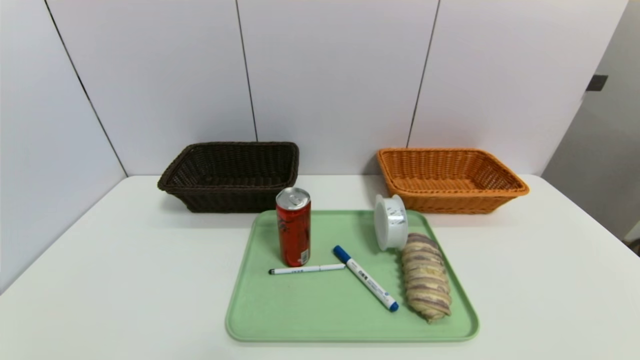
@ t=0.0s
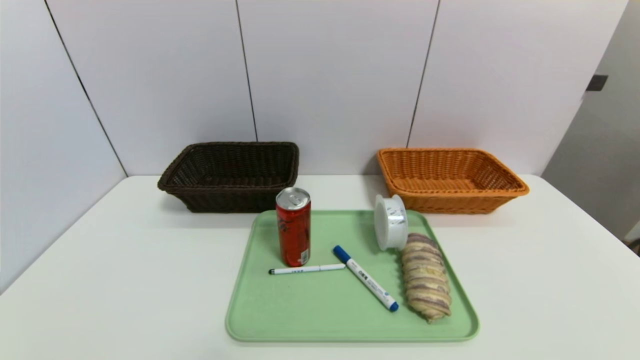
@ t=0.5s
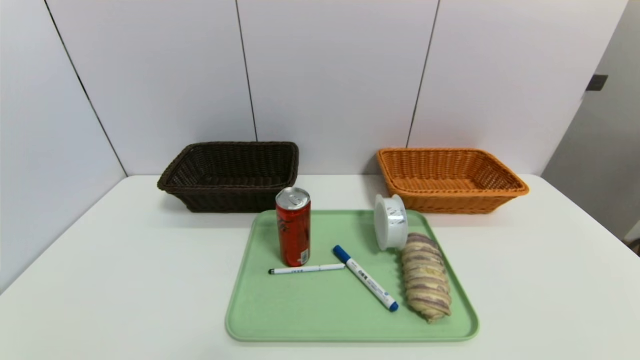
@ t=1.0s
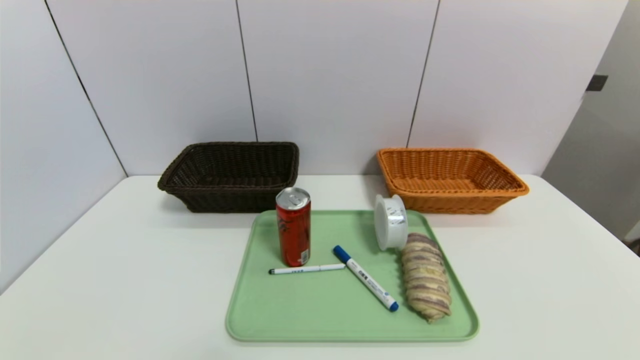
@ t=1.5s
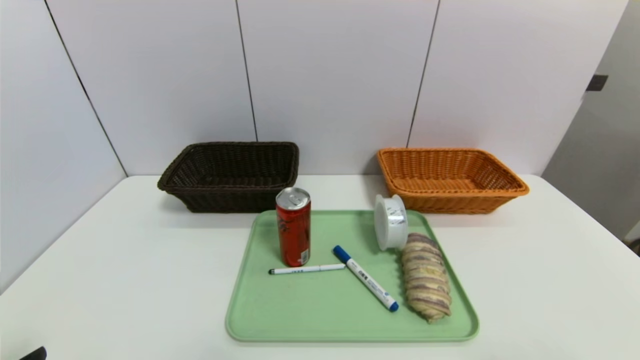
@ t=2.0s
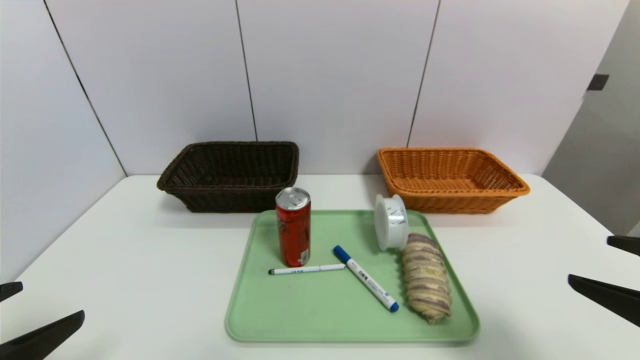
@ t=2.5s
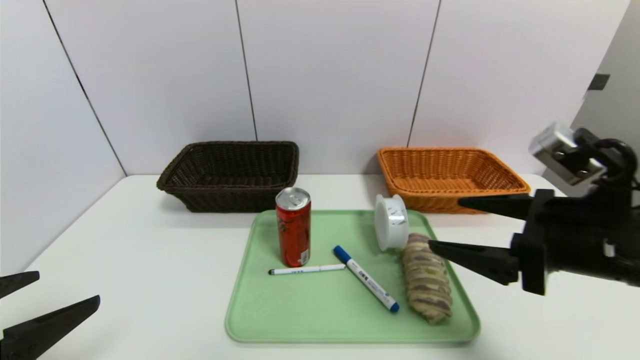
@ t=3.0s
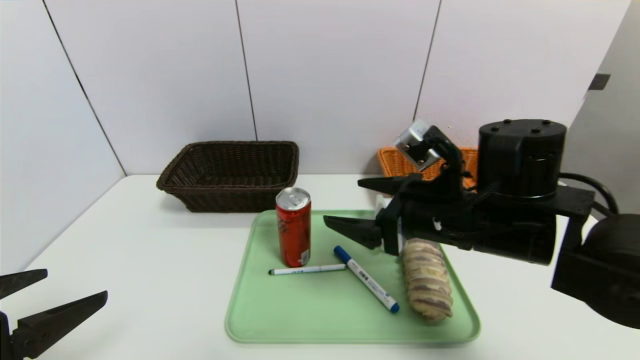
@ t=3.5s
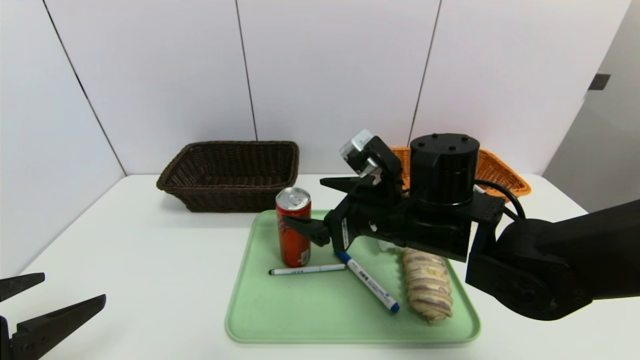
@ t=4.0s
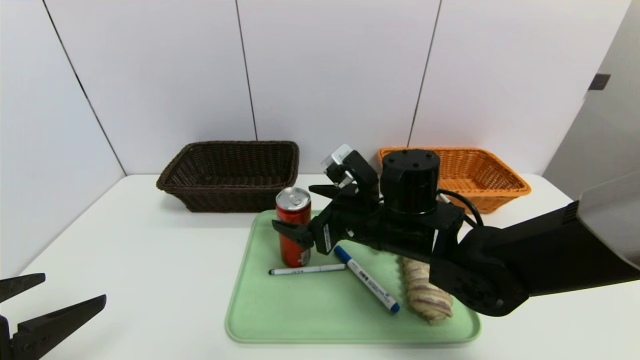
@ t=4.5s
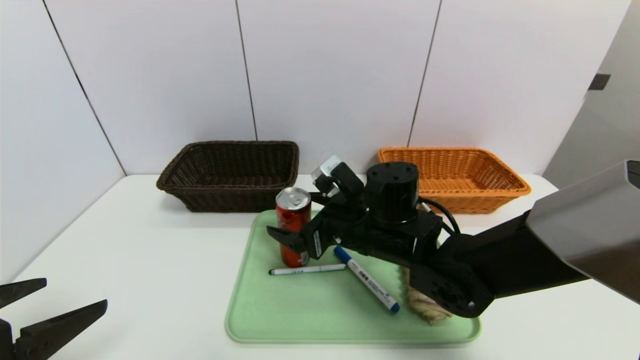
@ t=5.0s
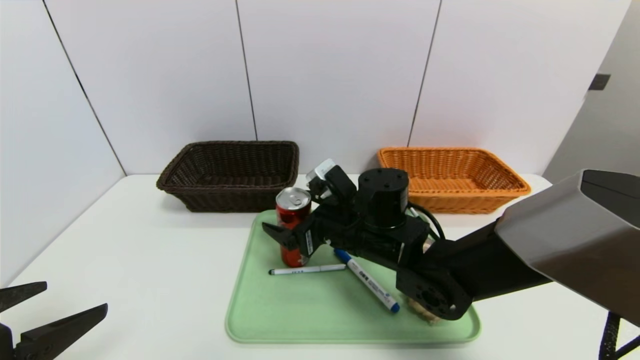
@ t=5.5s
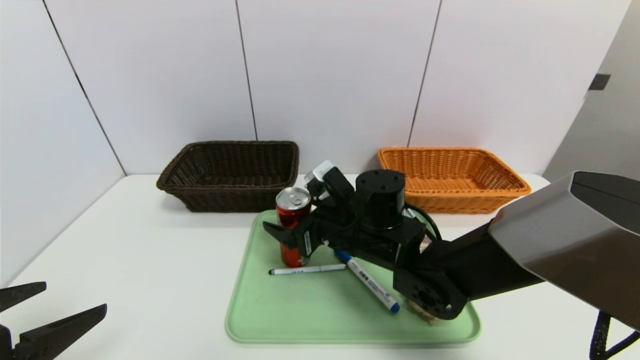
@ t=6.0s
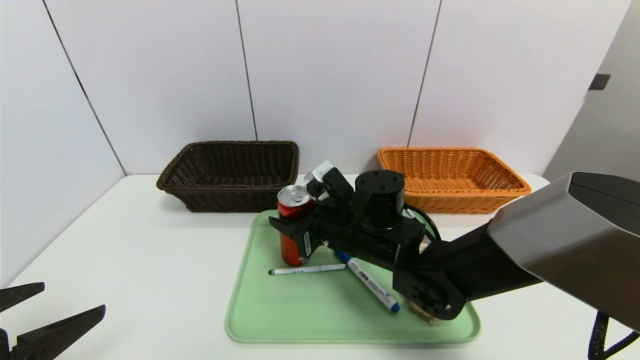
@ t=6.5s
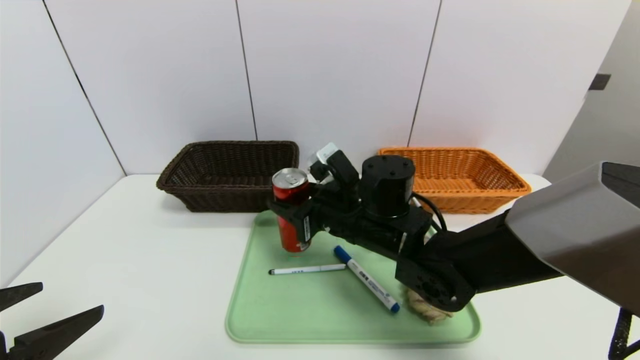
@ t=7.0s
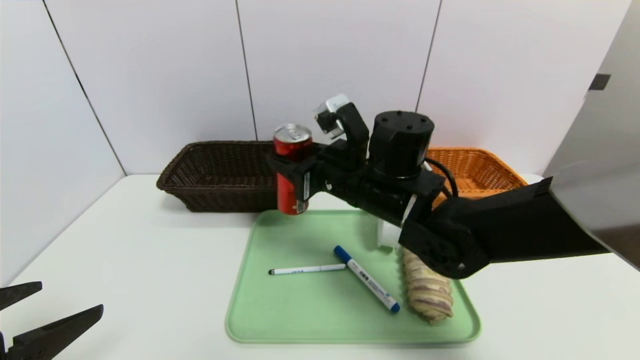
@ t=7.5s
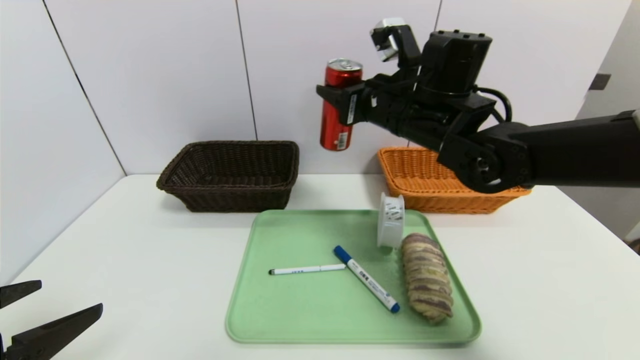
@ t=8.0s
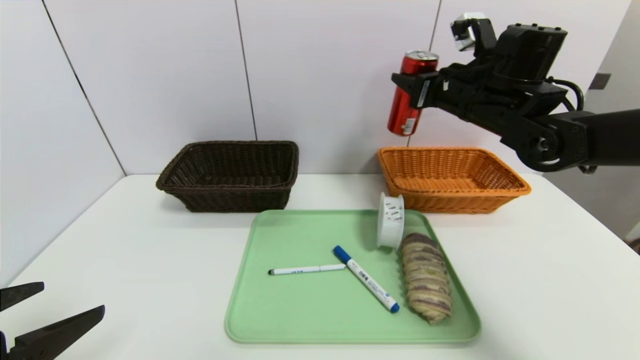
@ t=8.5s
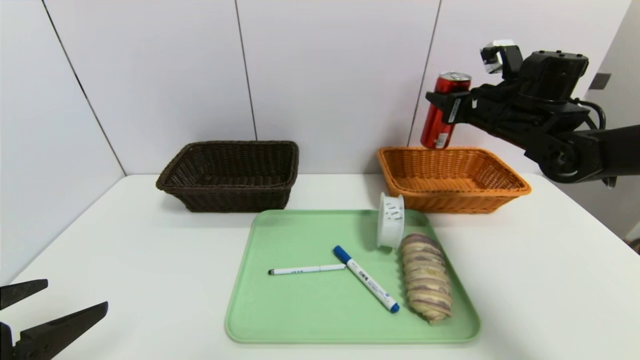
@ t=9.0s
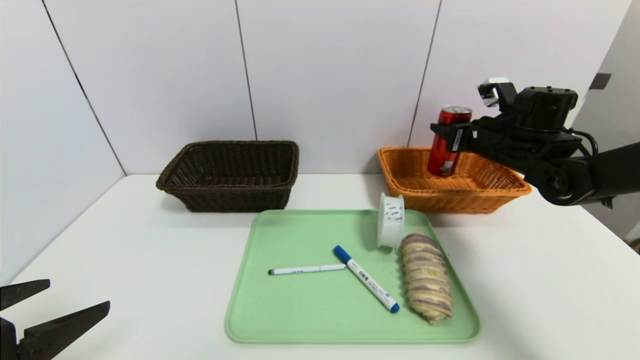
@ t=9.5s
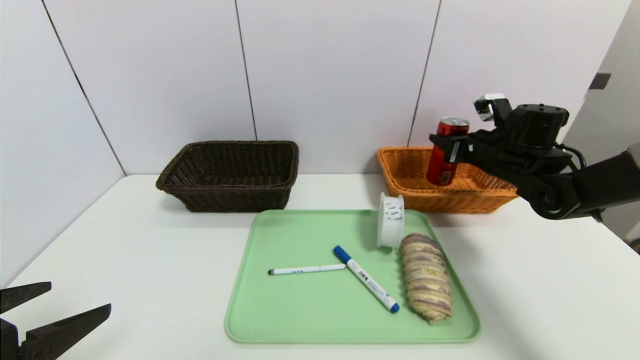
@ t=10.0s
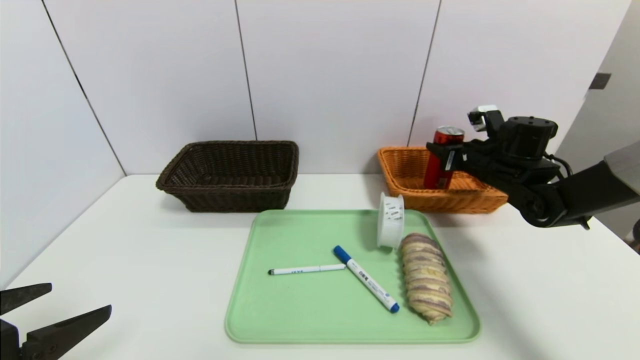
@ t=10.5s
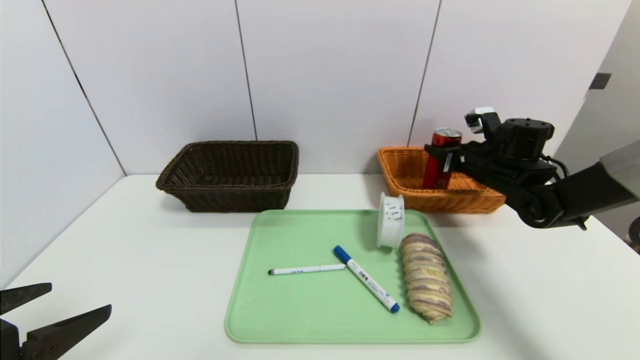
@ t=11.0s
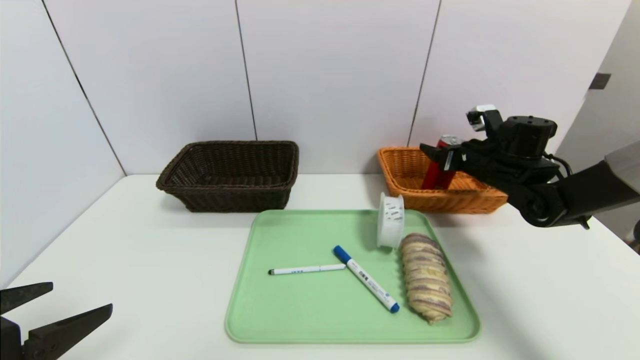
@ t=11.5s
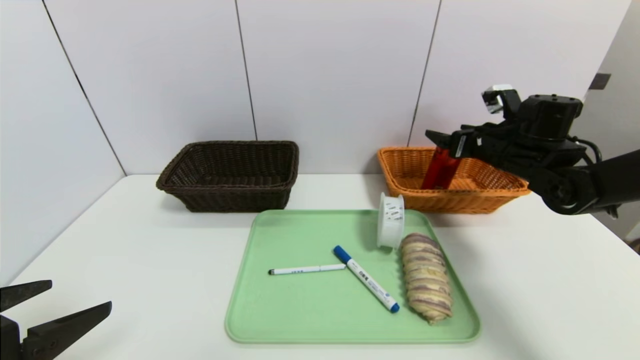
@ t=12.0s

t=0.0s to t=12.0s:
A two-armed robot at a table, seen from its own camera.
Task of the whole recording: place the food in the right basket with the right gripper, and place the non food items in the left basket with the left gripper.
Step, t=0.0s to t=12.0s: Grasp the canned cola and put it in the right basket.
t=2.0s to t=4.0s: The right gripper moves forward and to the left, some 35 cm. Meanwhile the left gripper shifts approximately 5 cm forward.
t=4.0s to t=6.0s: The right gripper shifts about 5 cm downward.
t=6.0s to t=8.0s: The right gripper travels upward and to the right by some 15 cm, and closes.
t=8.0s to t=10.0s: The right gripper goes about 20 cm to the right and downward.
t=10.0s to t=12.0s: The right gripper opens its fingers.

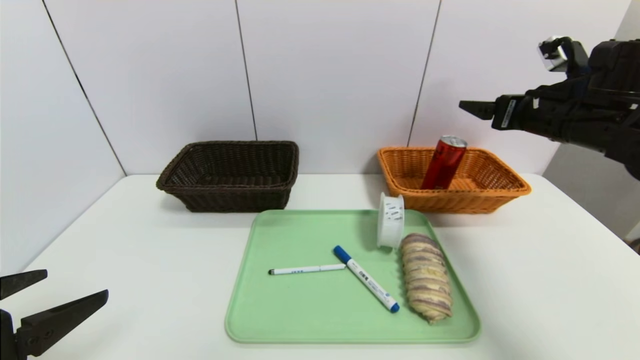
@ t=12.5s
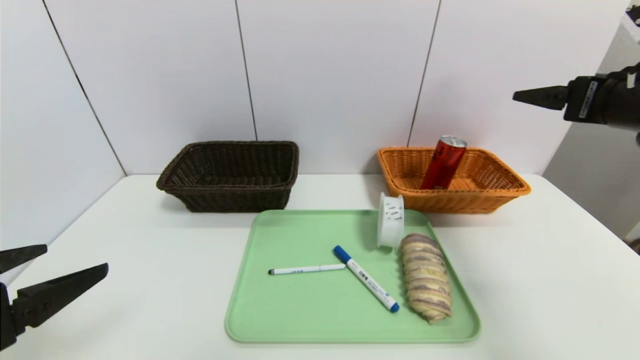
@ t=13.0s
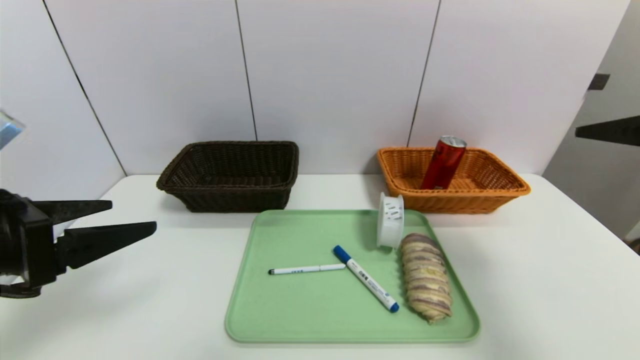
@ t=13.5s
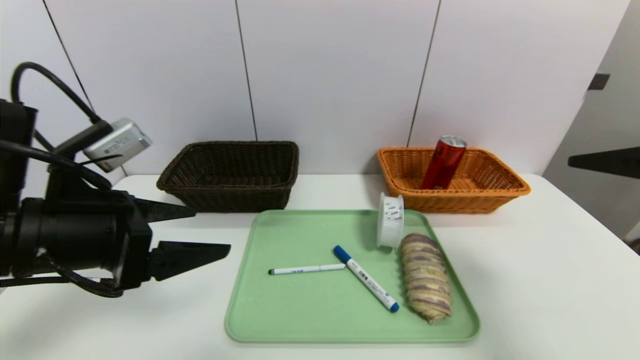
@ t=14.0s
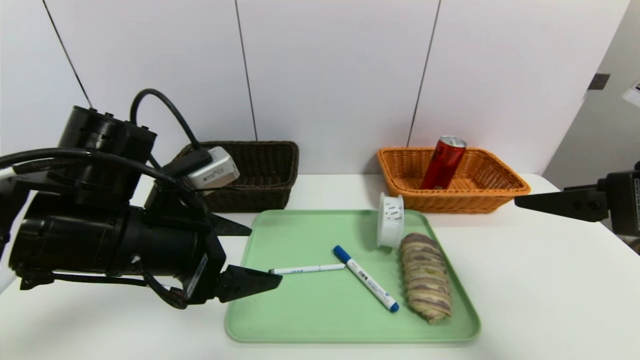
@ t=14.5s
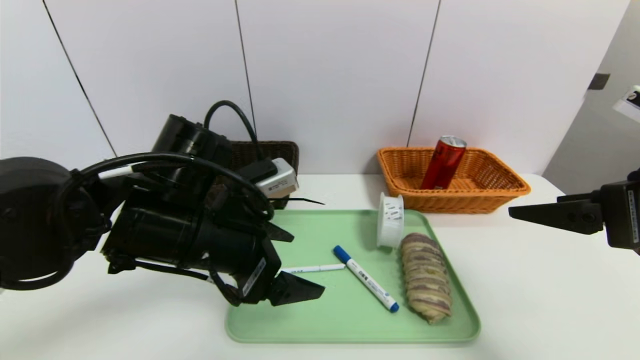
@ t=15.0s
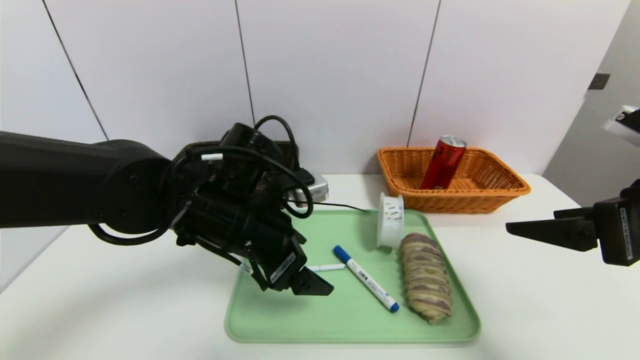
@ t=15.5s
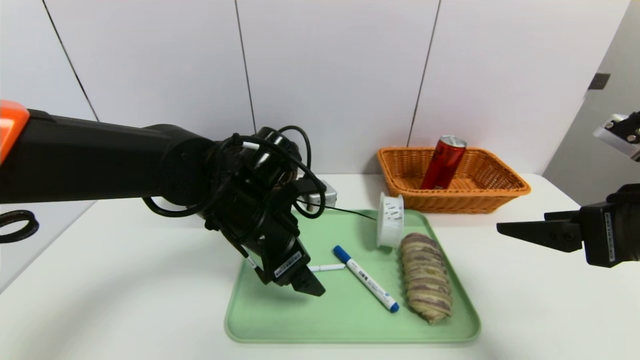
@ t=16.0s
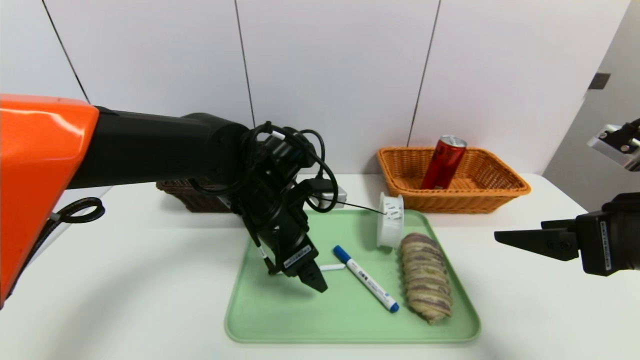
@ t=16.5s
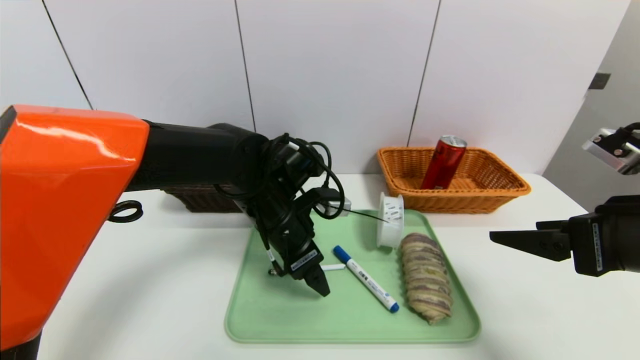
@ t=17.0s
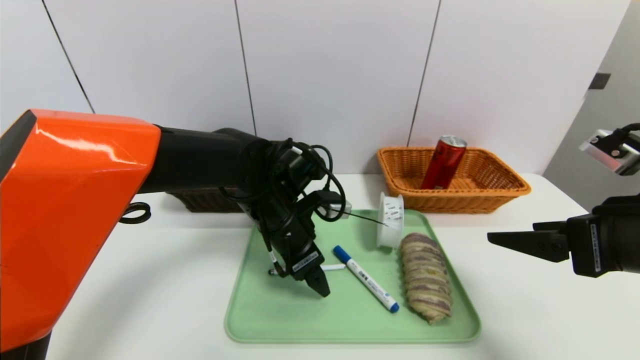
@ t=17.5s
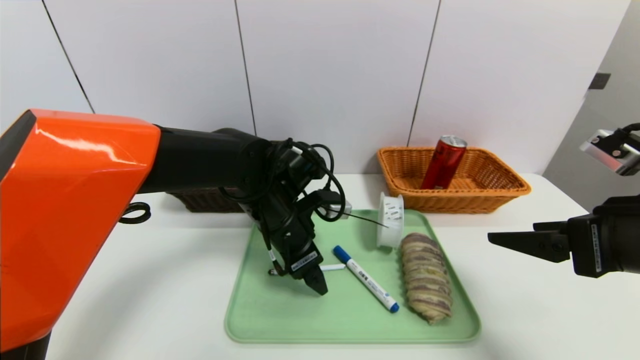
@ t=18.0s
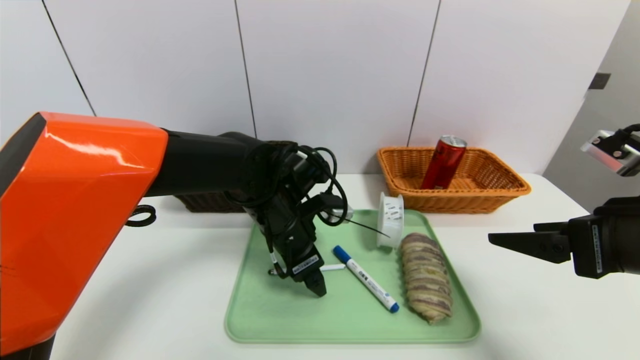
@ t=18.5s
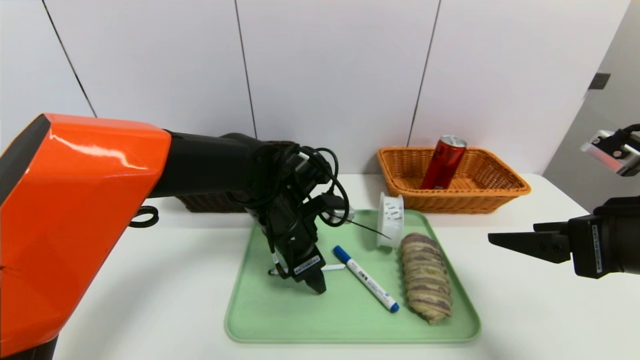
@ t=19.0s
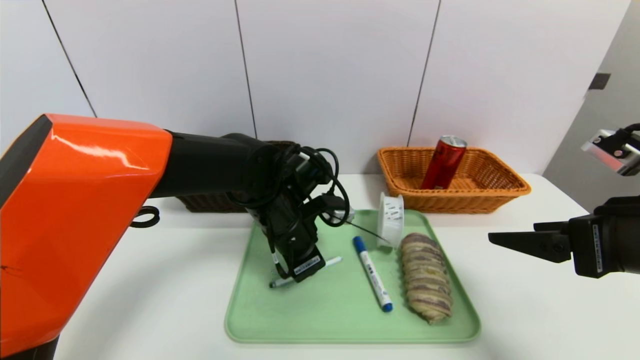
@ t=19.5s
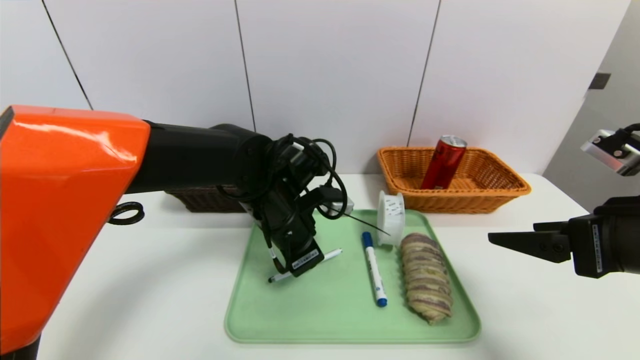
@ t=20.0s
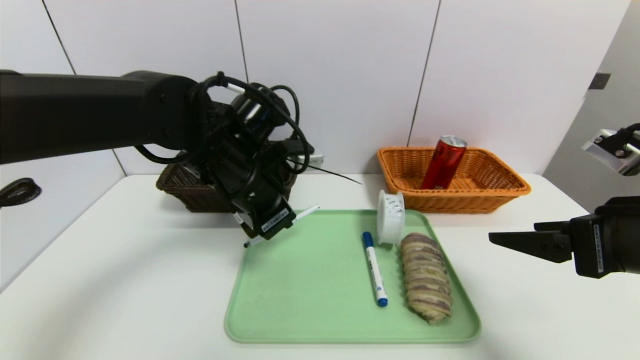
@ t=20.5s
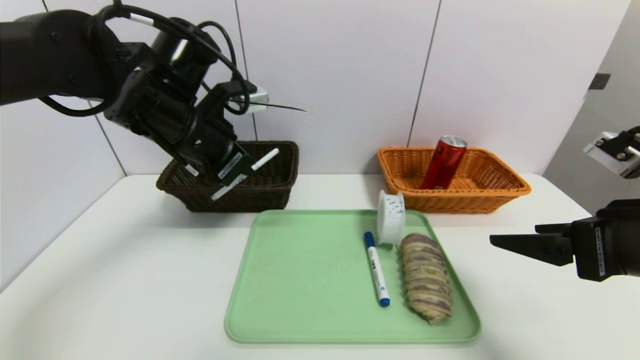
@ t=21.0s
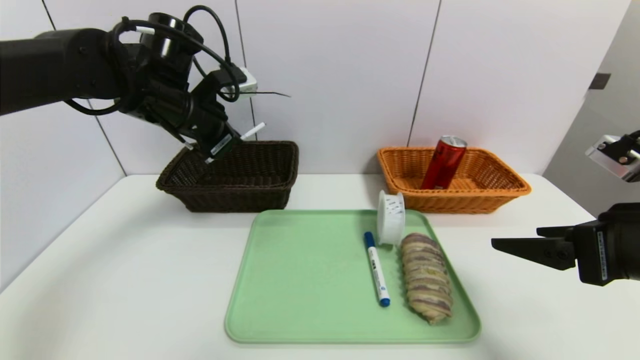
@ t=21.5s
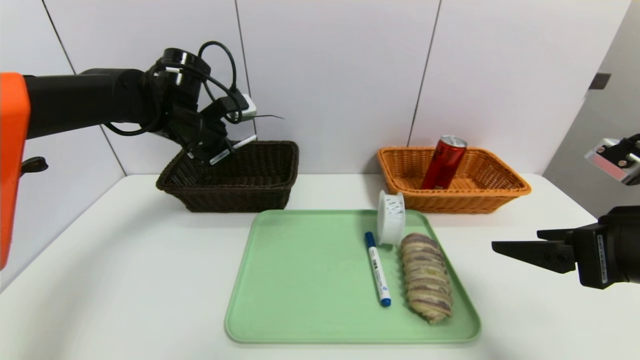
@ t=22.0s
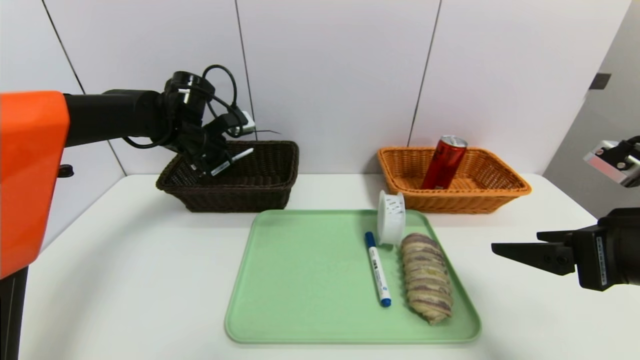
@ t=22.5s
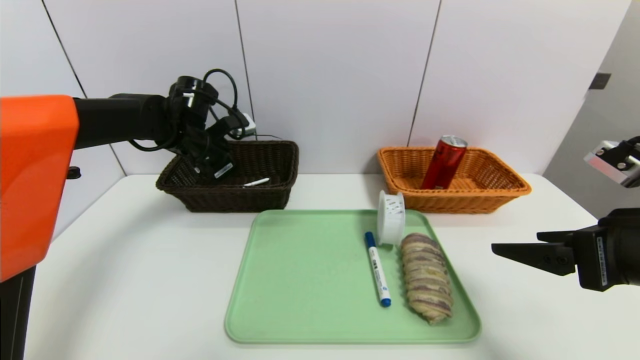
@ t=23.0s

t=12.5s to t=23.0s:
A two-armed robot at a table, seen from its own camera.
Task of the whole recording: place the food in the right basket with the right gripper, and place the non food items in the left basket with the left gripper.
t=12.5s to t=14.5s: The right gripper heads backward, covering about 20 cm; the left gripper travels forward and to the right by about 15 cm.
t=14.5s to t=16.5s: The left gripper goes some 15 cm to the right and forward.
t=16.5s to t=19.0s: The grippers stay close to where they were, moving slightly.
t=19.0s to t=21.0s: The left gripper moves upward and to the left, roughly 20 cm, and closes.
t=21.0s to t=23.0s: The left gripper is displaced forward, downward and to the left by roughly 15 cm, and opens up.
